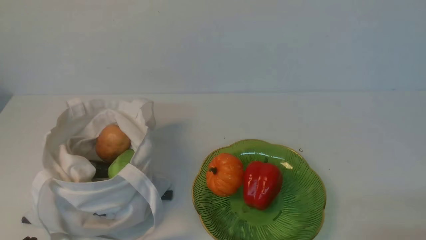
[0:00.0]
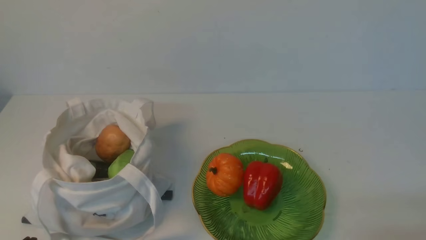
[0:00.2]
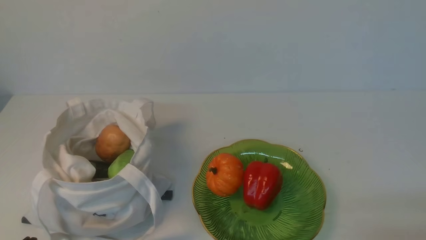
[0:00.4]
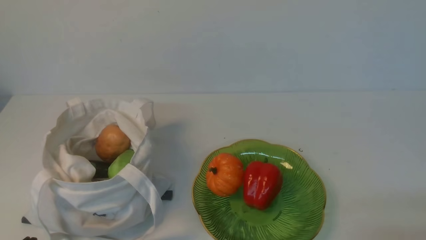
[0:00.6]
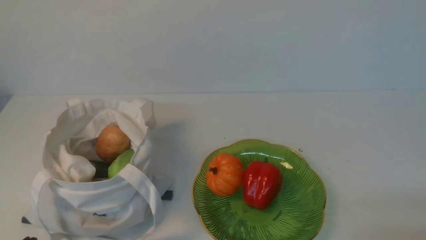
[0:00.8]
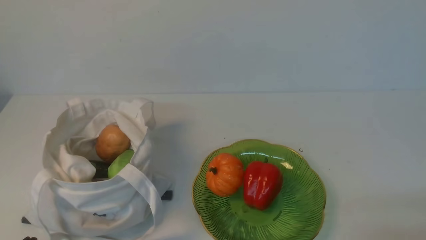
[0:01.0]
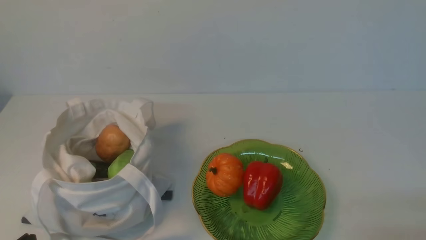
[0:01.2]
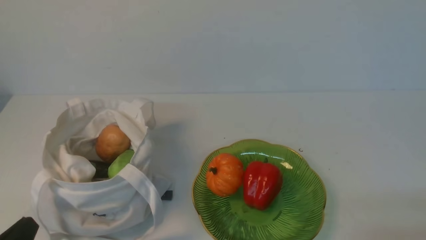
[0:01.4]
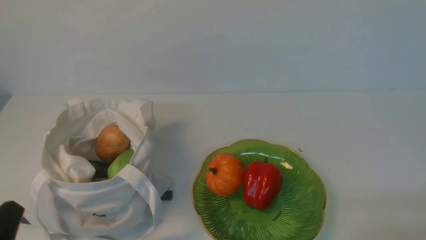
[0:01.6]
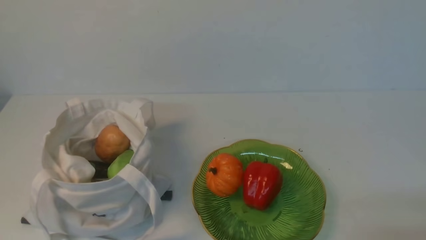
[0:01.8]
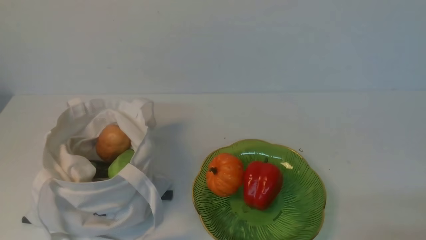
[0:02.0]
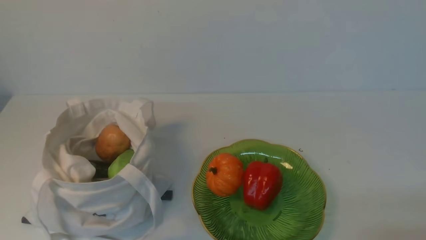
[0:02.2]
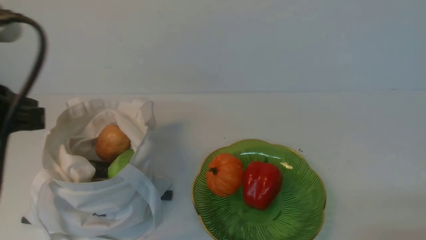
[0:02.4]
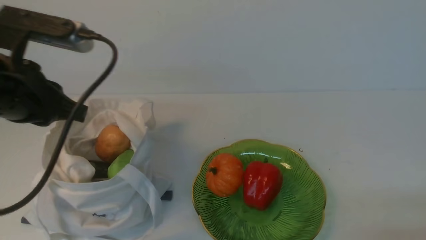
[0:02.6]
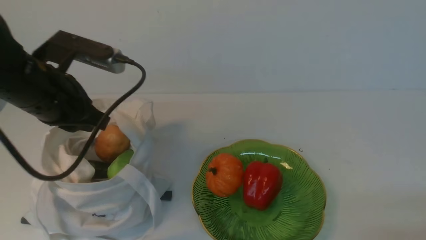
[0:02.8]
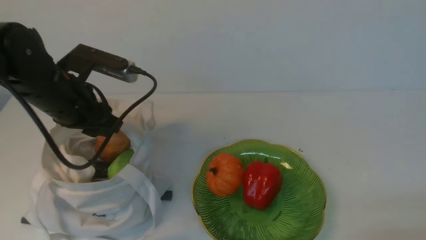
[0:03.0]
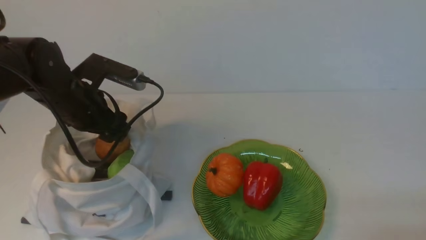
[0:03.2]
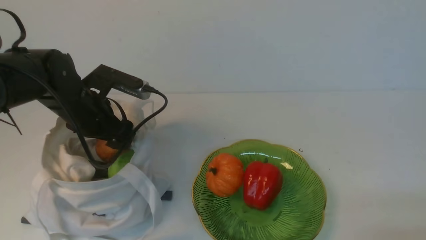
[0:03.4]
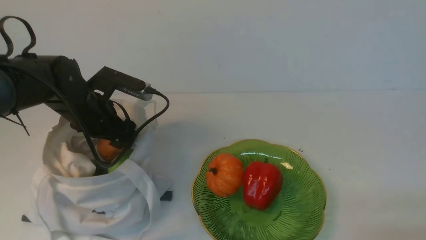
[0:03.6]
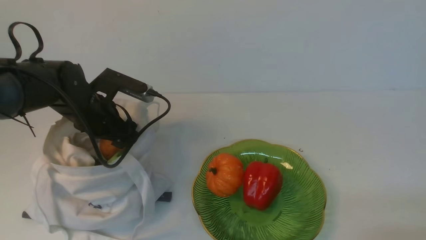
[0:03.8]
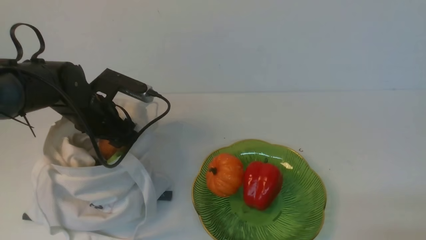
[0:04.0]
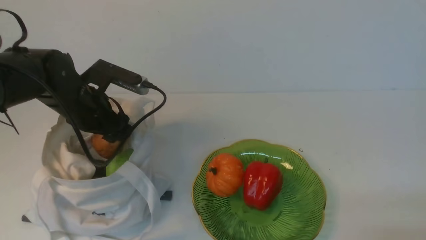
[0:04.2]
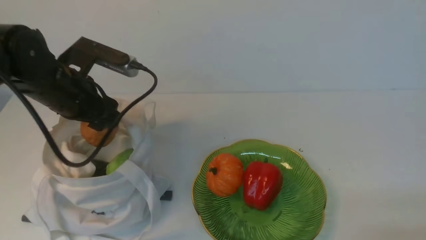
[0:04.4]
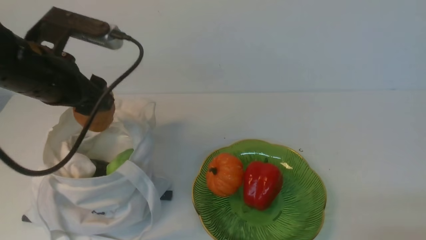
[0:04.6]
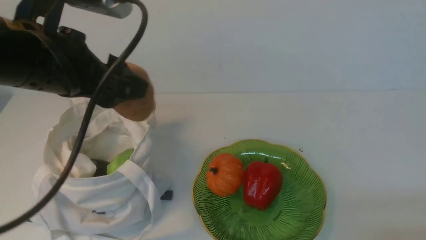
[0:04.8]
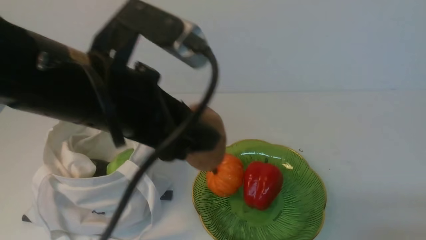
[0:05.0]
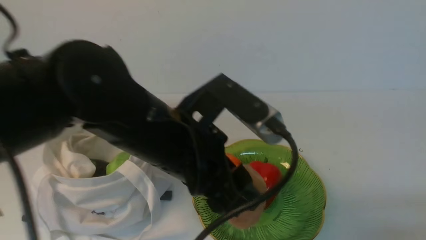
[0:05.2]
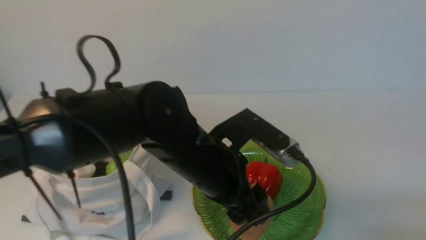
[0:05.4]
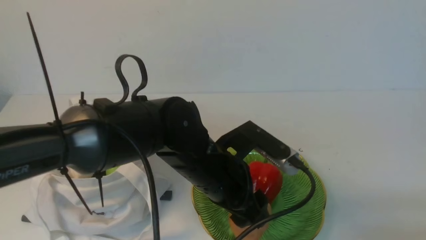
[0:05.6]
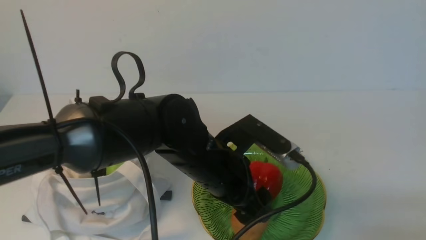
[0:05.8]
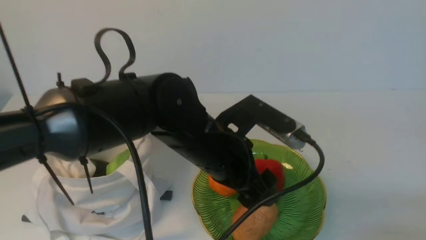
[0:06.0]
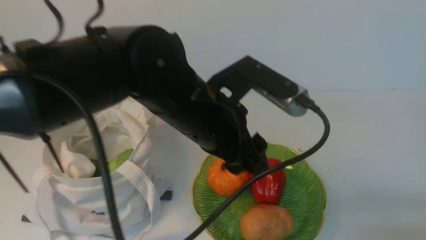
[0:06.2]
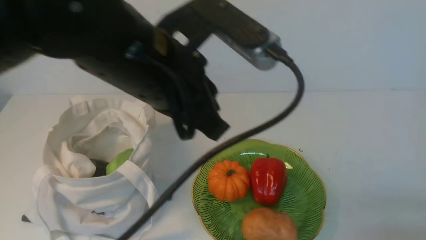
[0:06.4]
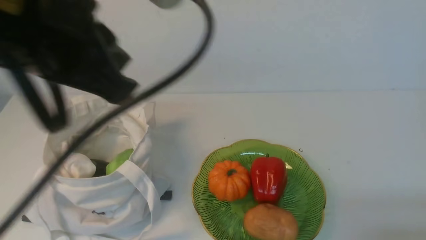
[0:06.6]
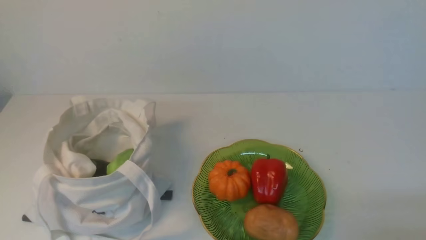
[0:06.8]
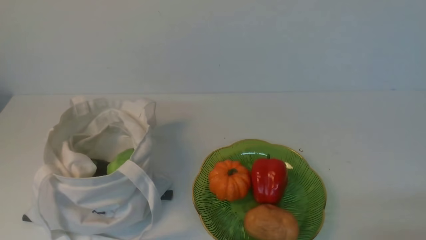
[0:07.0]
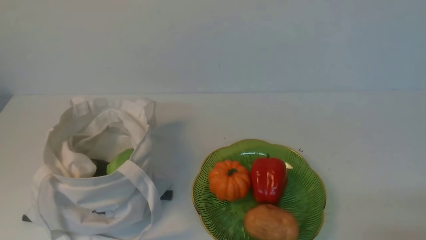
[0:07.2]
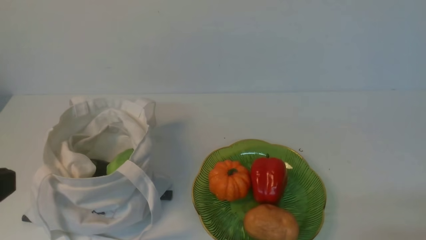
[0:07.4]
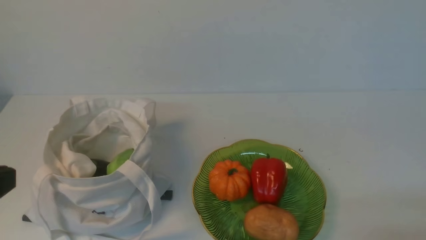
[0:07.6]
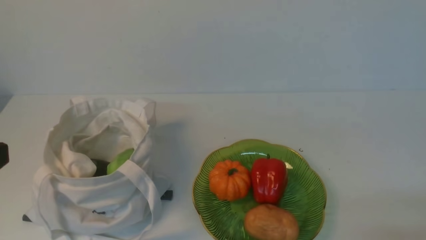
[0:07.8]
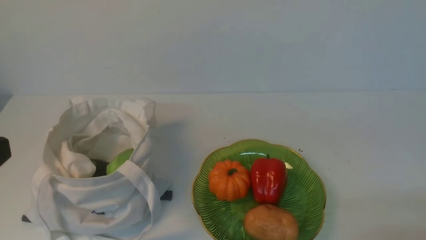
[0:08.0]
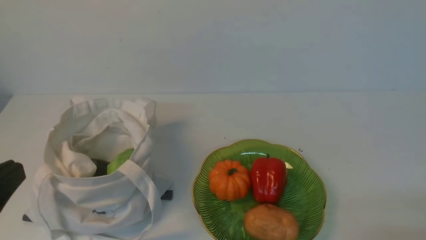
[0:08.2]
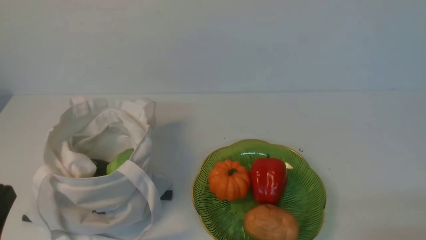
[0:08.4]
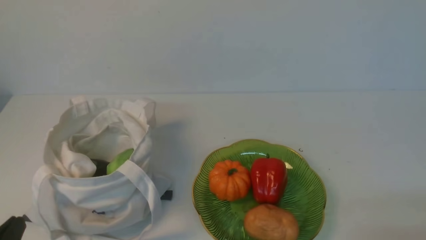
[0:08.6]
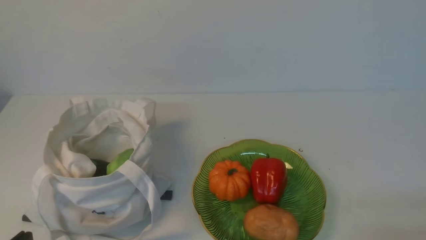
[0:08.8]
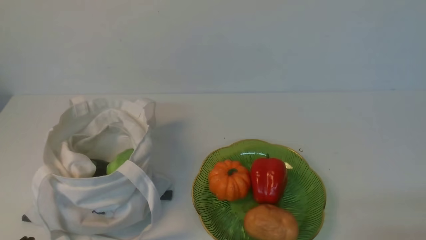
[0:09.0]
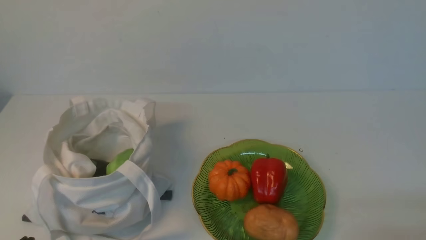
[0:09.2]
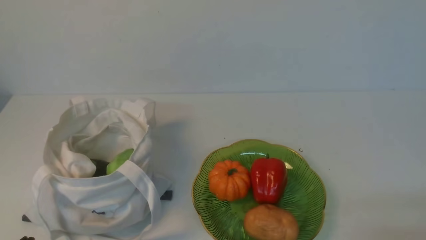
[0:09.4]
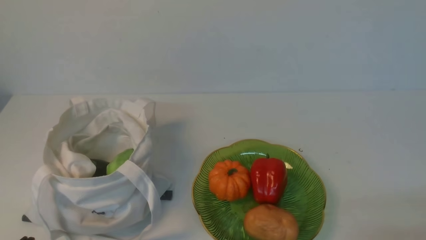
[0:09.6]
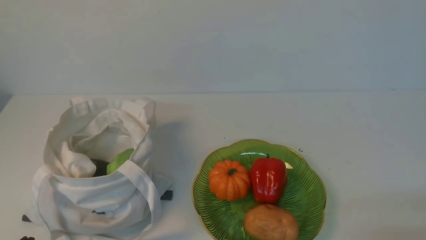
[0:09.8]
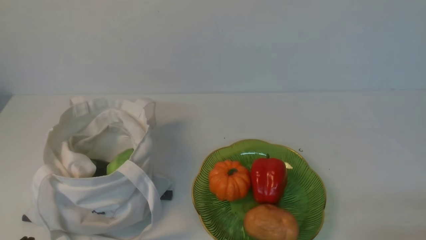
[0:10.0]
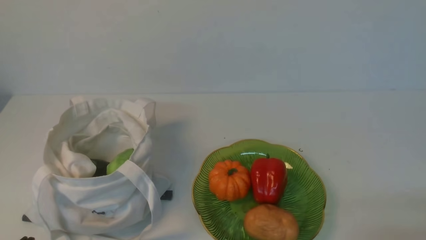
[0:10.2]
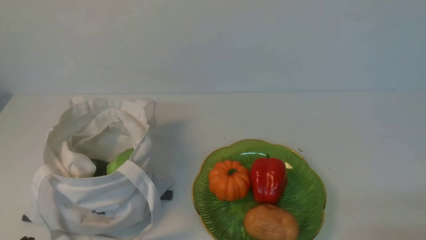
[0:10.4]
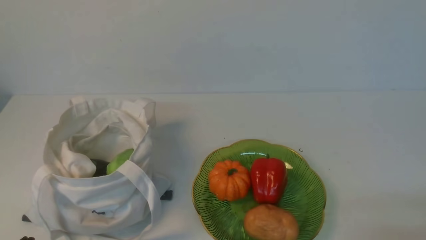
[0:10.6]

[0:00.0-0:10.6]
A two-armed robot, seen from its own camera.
Task of the whole recording: take vegetables from cloth bag on white table place on plate.
Step, 0:00.0 to 0:04.0: Grasp the potato with left gripper.
Step, 0:04.2 to 0:06.0: Place the potato on the plate with left gripper.
0:01.6 to 0:03.0: The left gripper goes some 25 cm forward, and opens its fingers.
0:03.0 to 0:04.6: The left gripper goes approximately 5 cm upward.
0:04.6 to 0:06.0: The left gripper goes approximately 20 cm to the right.
0:06.0 to 0:07.6: The left gripper heads to the left and backward, covering approximately 30 cm, and closes up.
0:09.0 to 0:10.6: Both grippers stay about where they are.
